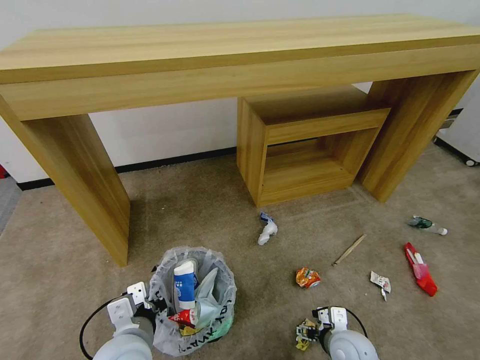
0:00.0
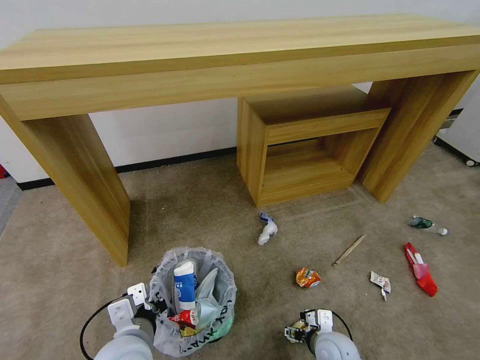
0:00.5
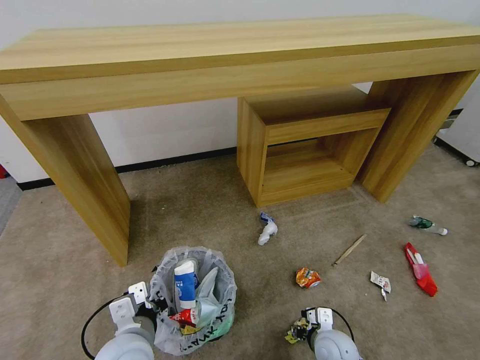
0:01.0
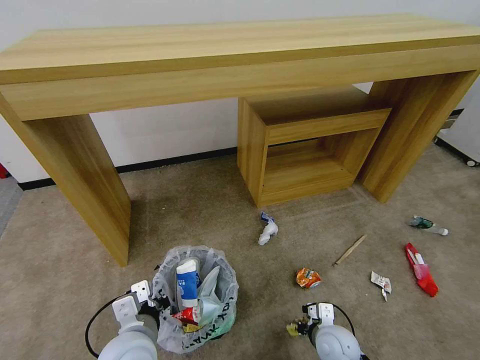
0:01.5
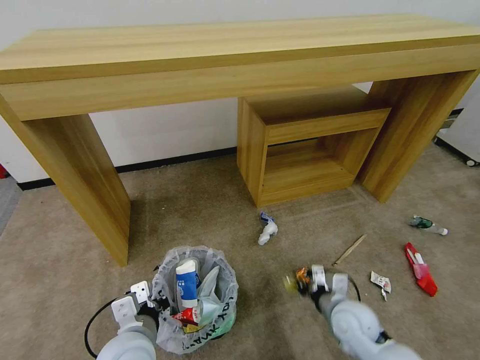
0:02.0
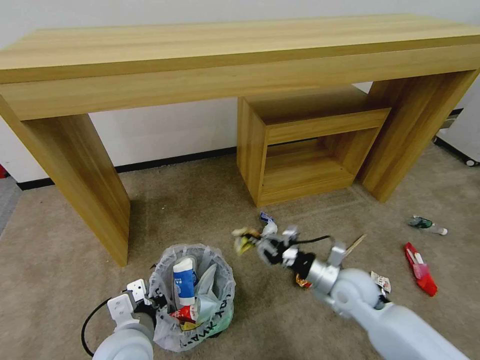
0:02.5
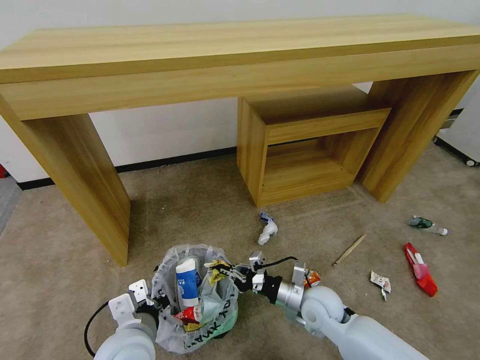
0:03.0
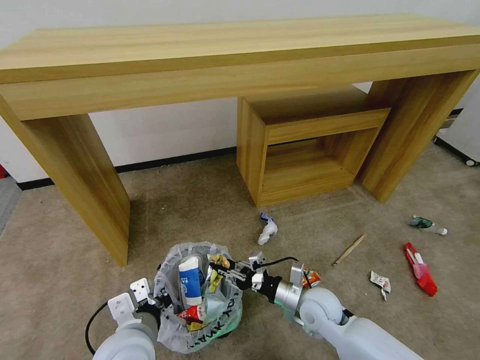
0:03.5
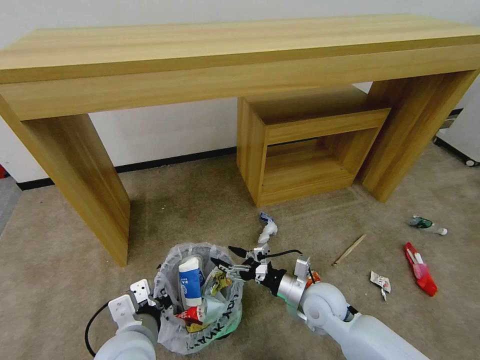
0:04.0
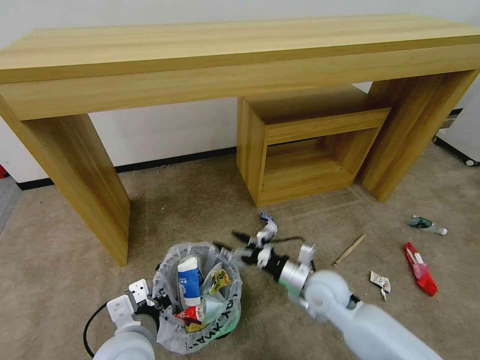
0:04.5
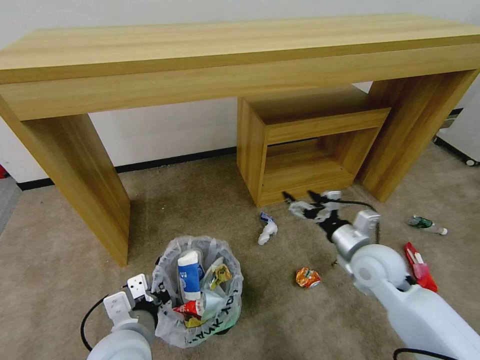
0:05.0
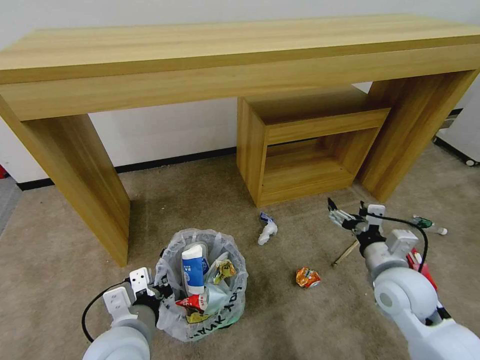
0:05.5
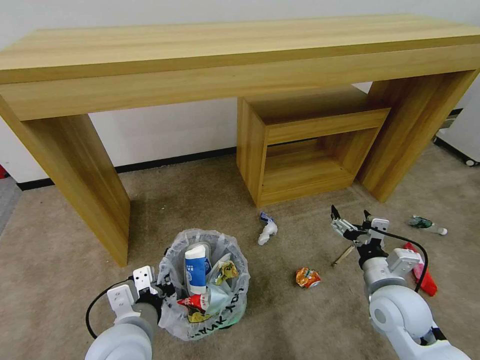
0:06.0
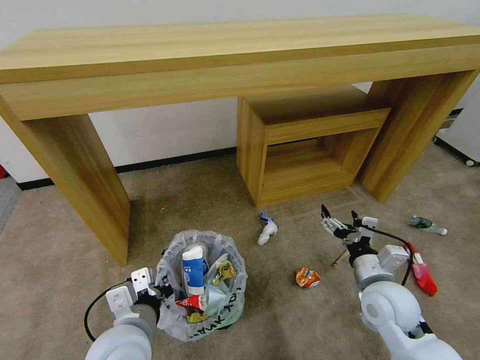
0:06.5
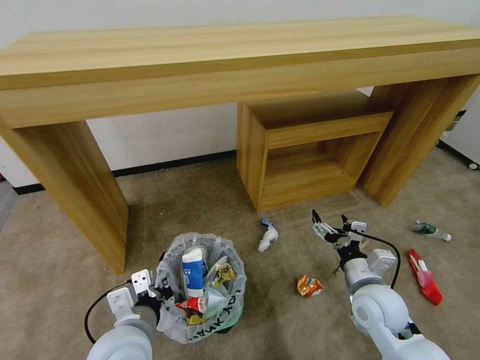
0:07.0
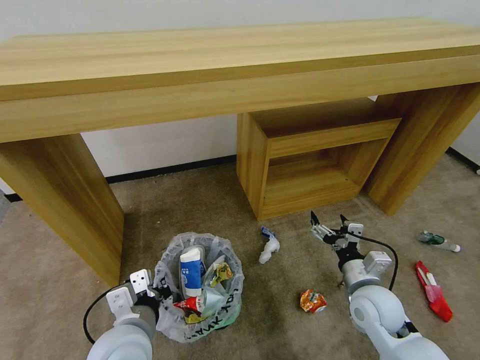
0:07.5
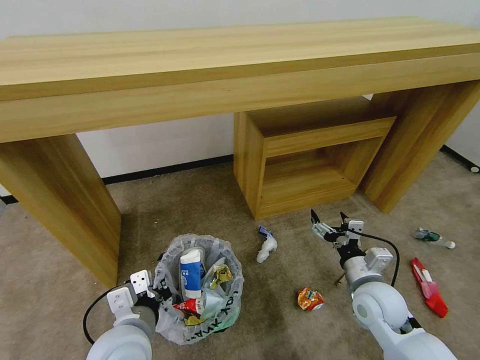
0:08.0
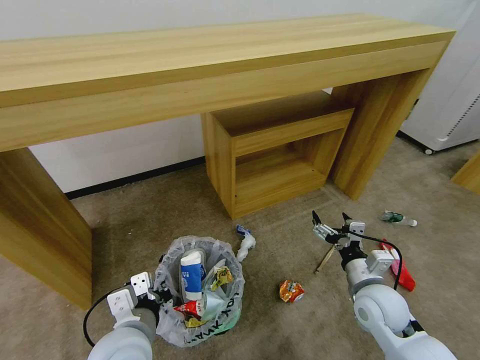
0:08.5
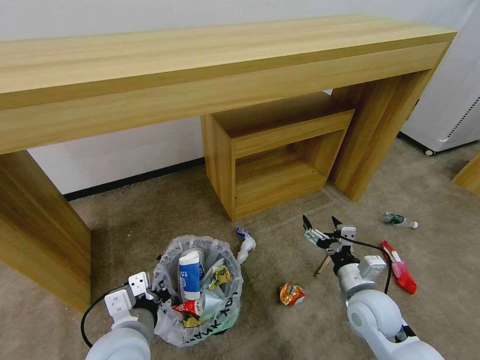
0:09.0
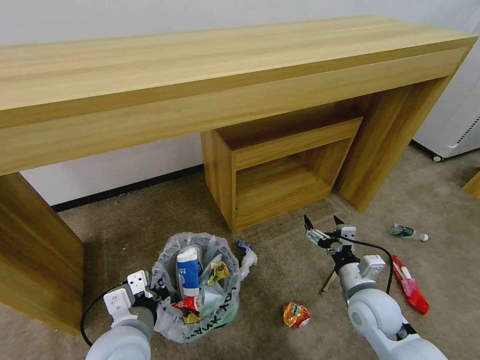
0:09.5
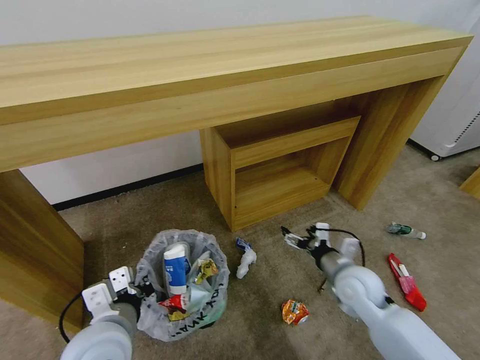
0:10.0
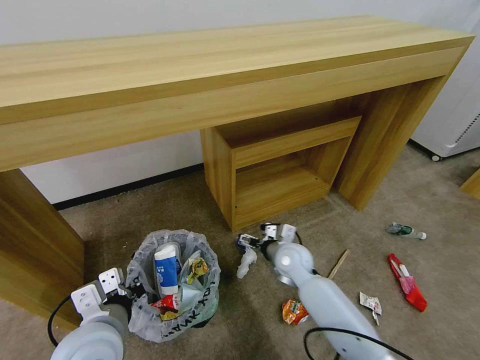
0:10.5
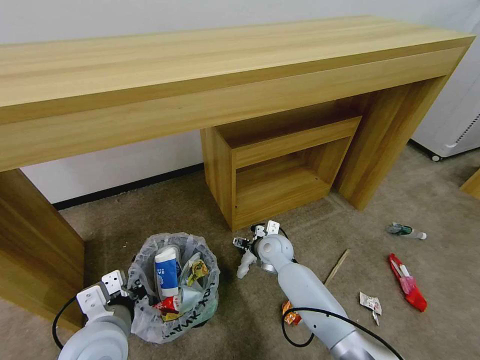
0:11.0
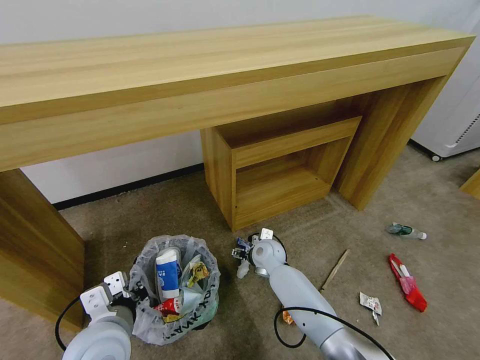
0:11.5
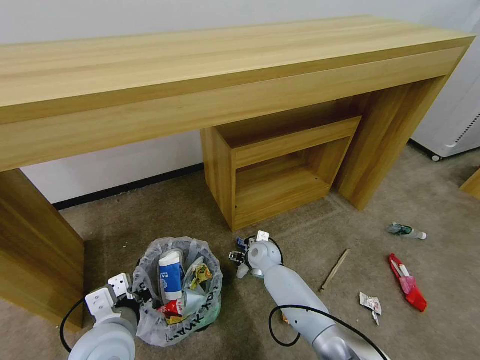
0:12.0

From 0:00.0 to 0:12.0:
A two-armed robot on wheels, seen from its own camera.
Task of the whole recording: Pick up the trash bin and place the garbage on the floor into it.
From 0:00.0 to 0:02.0: The right gripper shifts by about 5 cm, and closes.
From 0:02.0 to 0:04.0: The right gripper heads to the left, covering some 5 cm, and opens its fingers.
From 0:04.0 to 0:06.0: The right gripper moves to the right and upward, some 15 cm.
From 0:10.0 to 0:12.0: The right gripper shifts approximately 25 cm to the left, forward and downward.

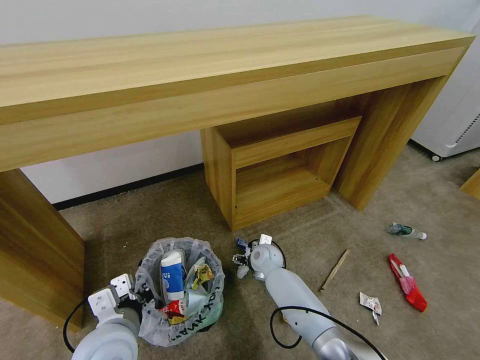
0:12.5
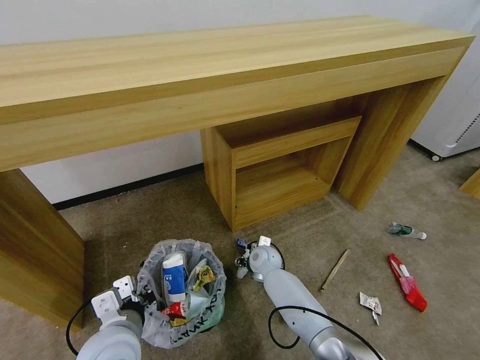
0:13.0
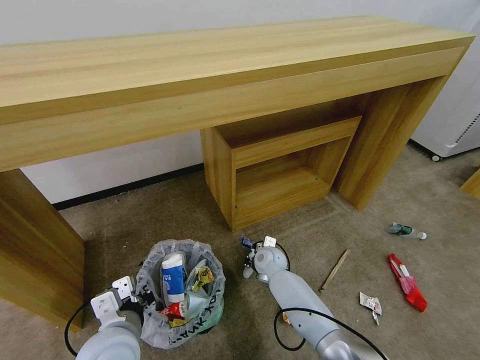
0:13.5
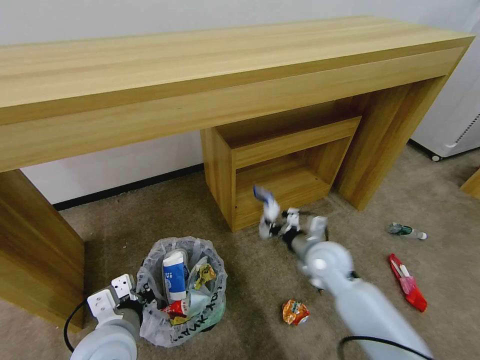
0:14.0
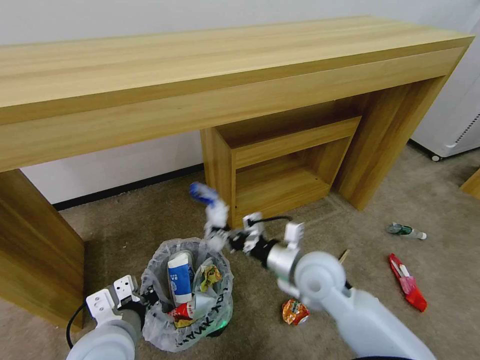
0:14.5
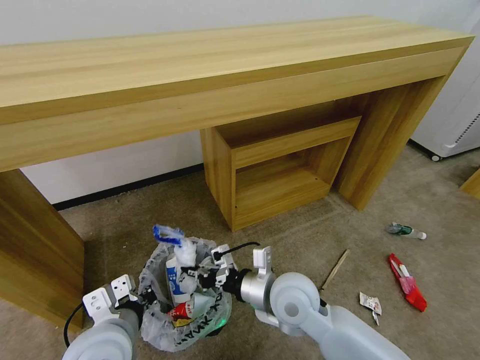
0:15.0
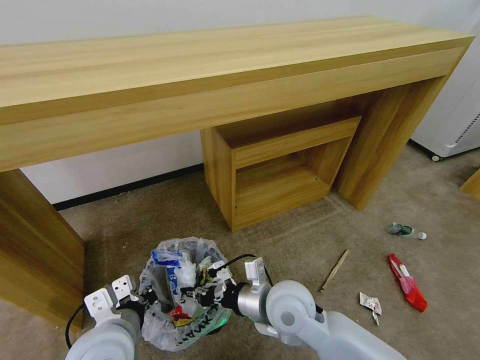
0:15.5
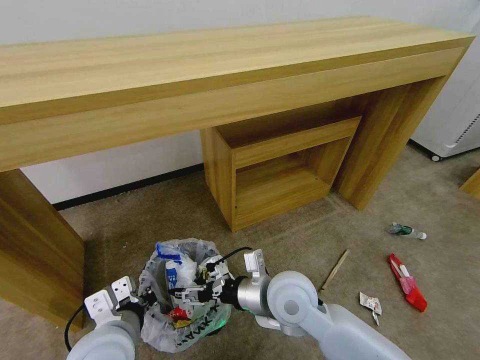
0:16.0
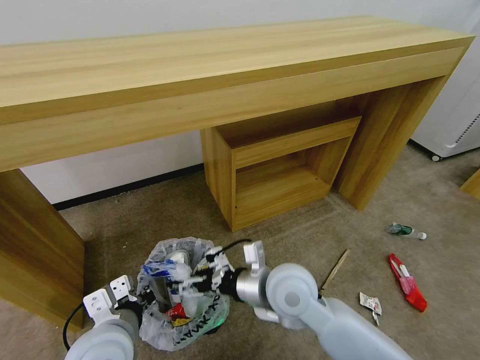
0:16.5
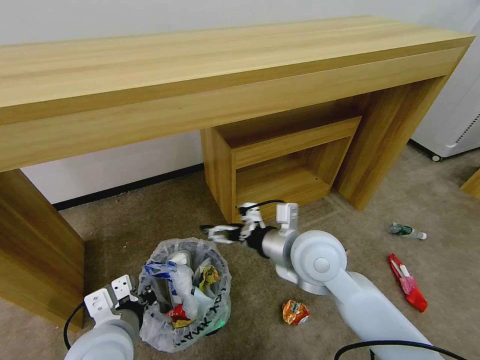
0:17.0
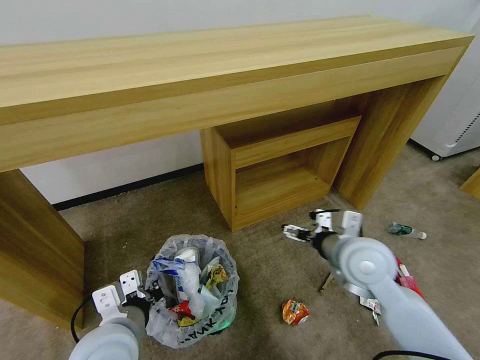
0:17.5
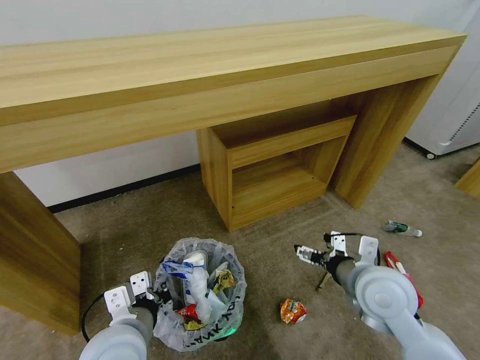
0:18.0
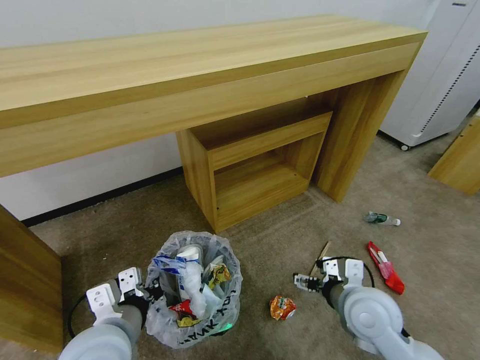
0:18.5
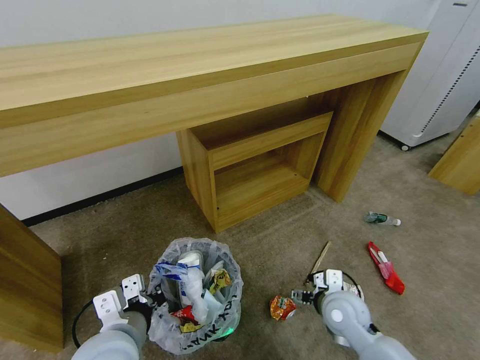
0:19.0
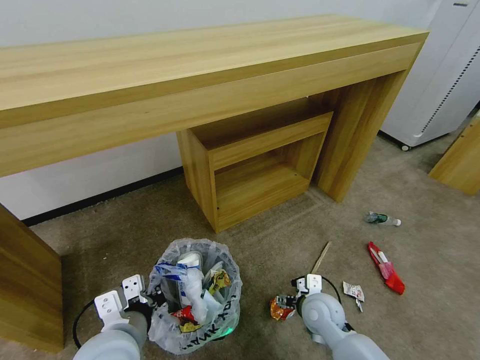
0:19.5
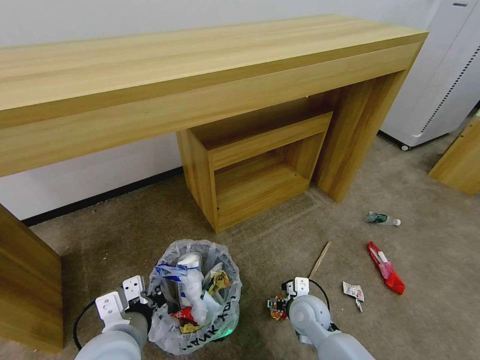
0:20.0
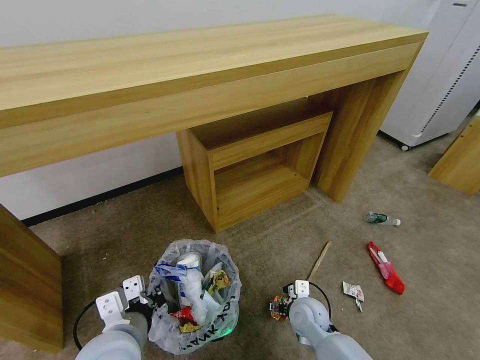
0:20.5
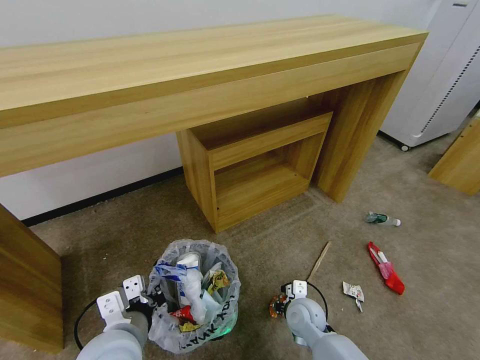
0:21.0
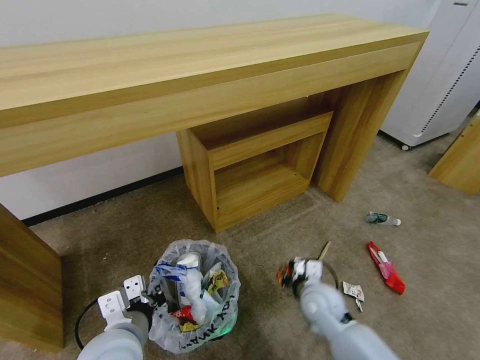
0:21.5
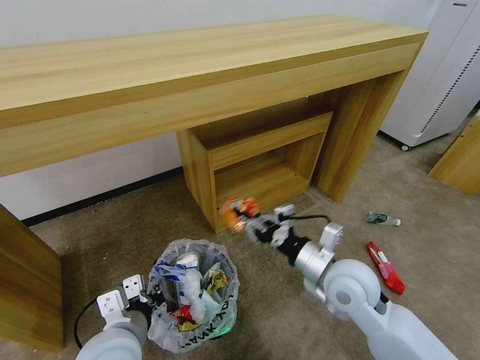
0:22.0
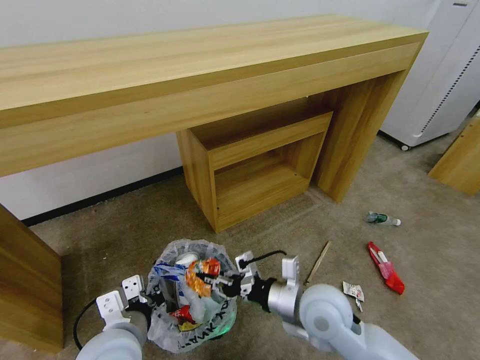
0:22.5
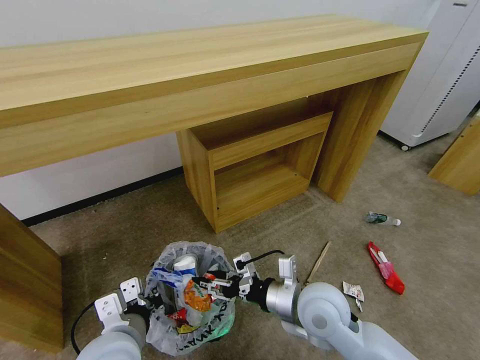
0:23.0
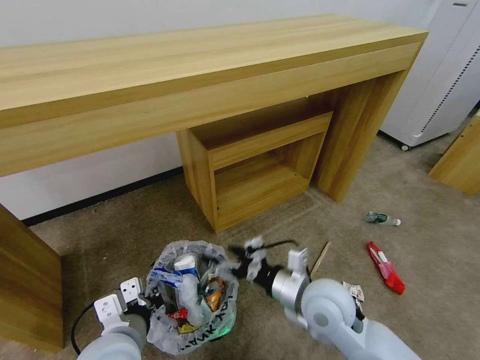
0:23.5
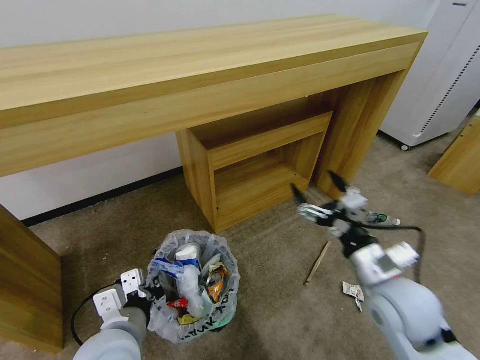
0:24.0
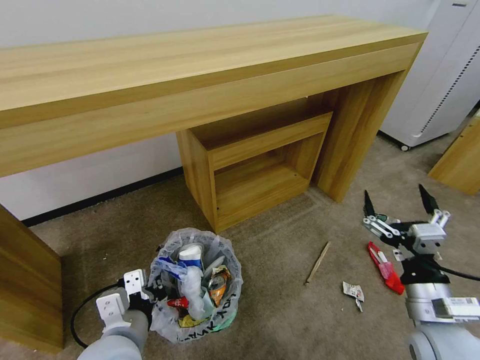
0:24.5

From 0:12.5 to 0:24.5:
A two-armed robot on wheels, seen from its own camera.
Task of the whole recording: Pick up the trash bin and place the garbage on the floor into it.
From 0:12.5 to 0:14.5: The right gripper moves upward, backward and to the right, some 25 cm, and closes its fingers.
From 0:14.5 to 0:16.5: The right gripper is displaced to the left by approximately 10 cm, and opens up.
From 0:16.5 to 0:18.5: The right gripper heads to the right, covering some 15 cm.
From 0:18.5 to 0:20.5: The right gripper shifts some 20 cm downward and to the left.
From 0:20.5 to 0:22.5: The right gripper moves upward, some 15 cm, and closes up.
From 0:22.5 to 0:24.5: The right gripper travels to the right and backward by about 20 cm, and opens up.

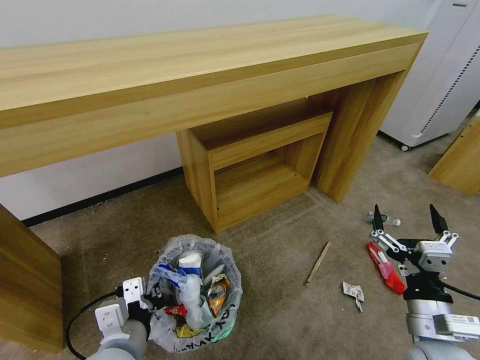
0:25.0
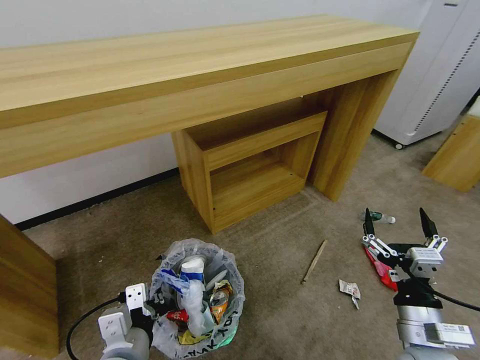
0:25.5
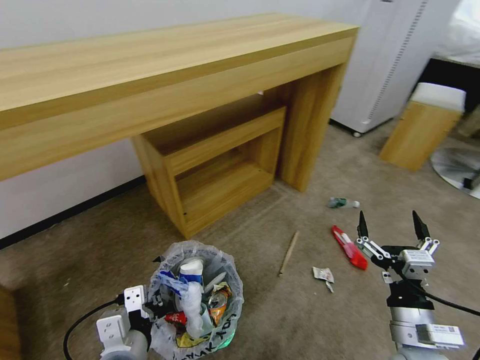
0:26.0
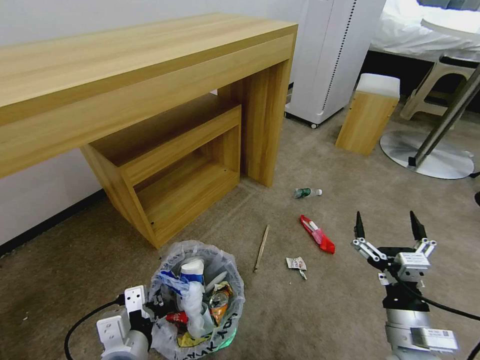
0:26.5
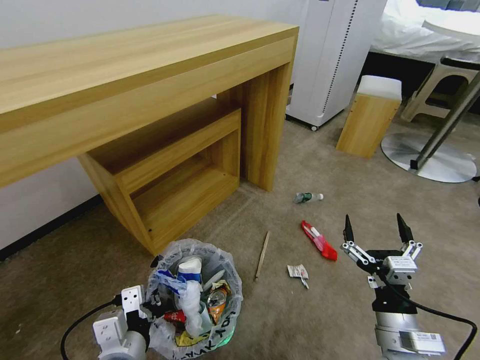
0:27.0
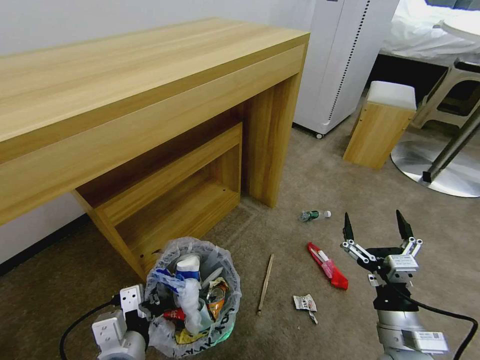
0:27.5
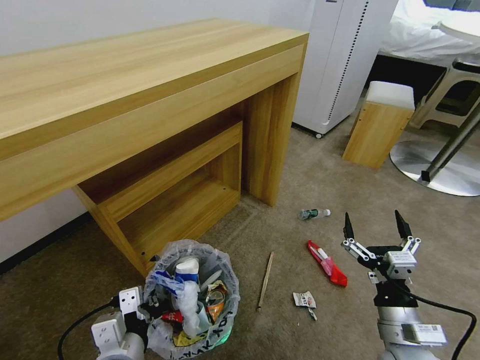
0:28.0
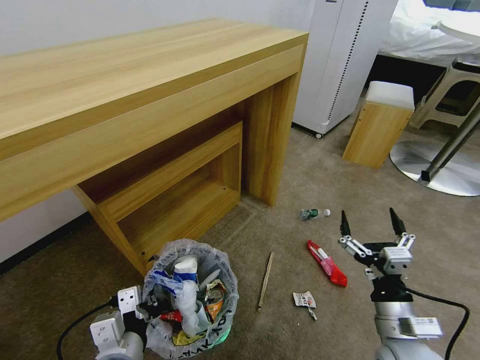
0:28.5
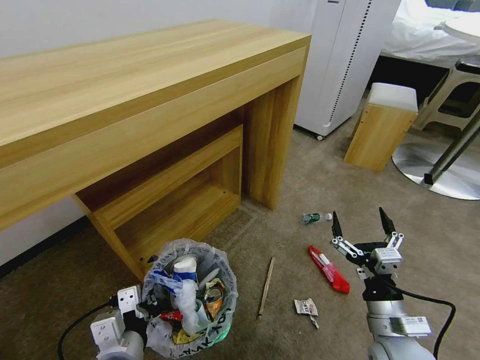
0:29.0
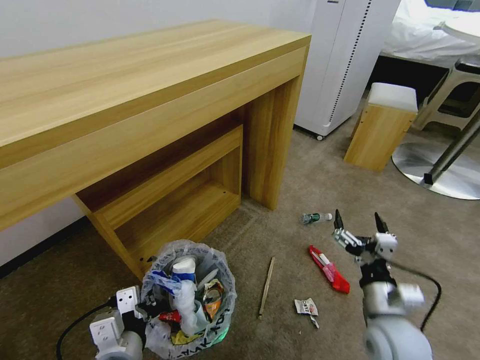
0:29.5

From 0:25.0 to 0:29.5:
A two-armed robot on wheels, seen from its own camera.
Task of the whole recording: Pick up the trash bin and place the garbage on the floor into it.
From 0:25.0 to 0:27.0: The right gripper changes place by roughly 5 cm.
From 0:27.0 to 0:29.5: The right gripper heads forward, covering about 5 cm.
